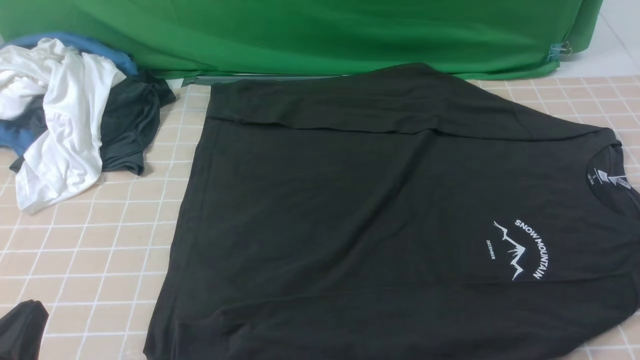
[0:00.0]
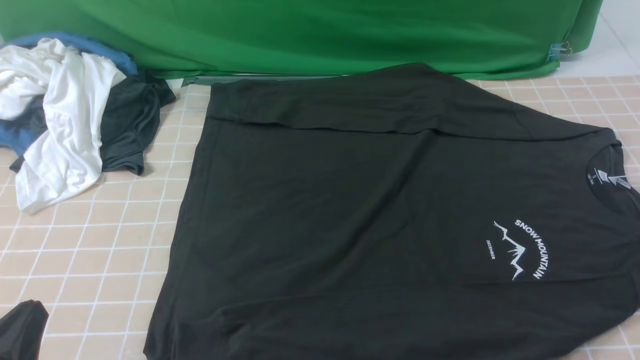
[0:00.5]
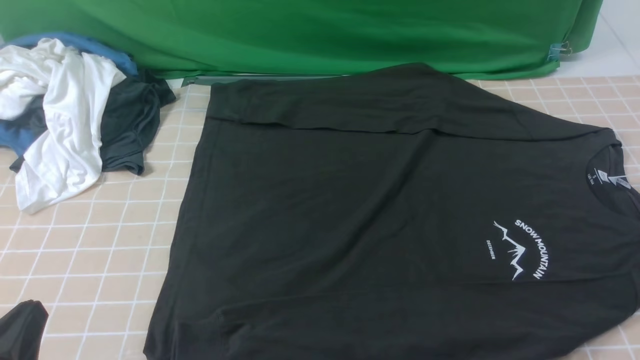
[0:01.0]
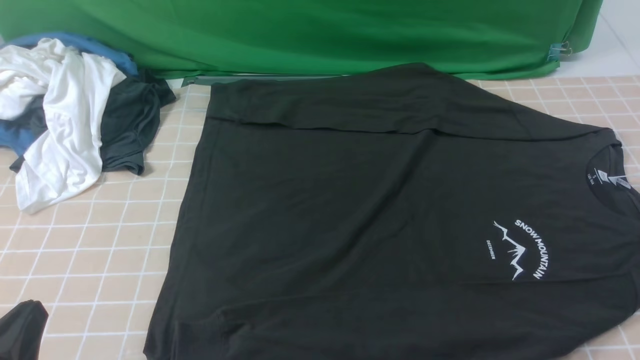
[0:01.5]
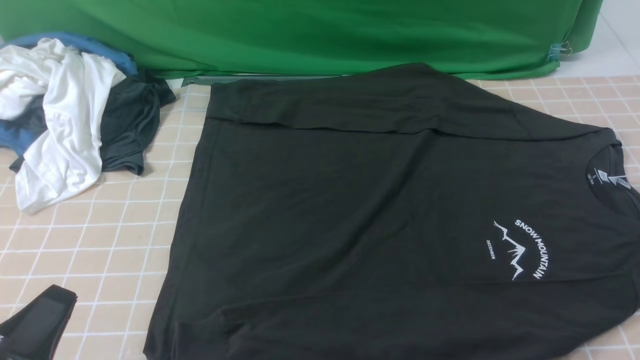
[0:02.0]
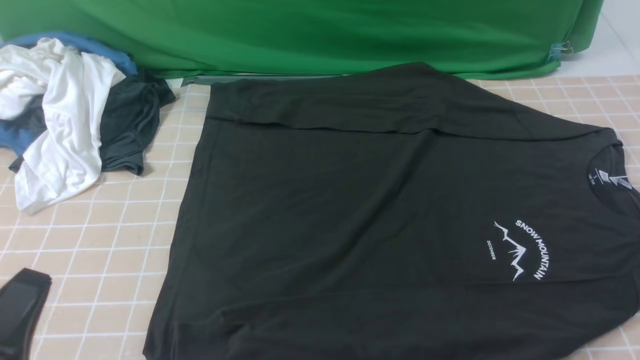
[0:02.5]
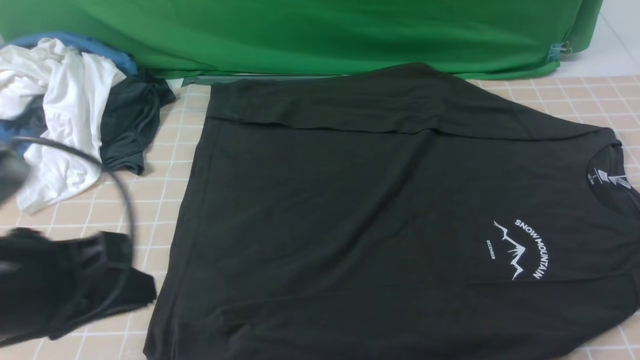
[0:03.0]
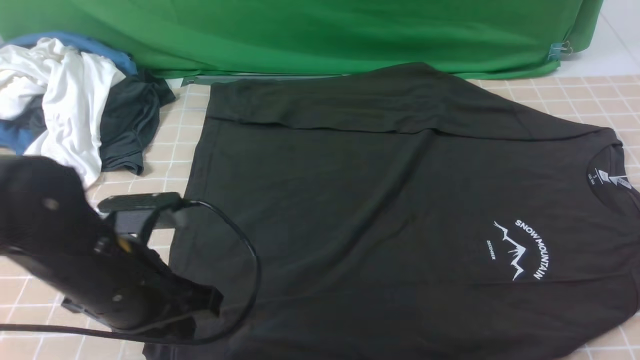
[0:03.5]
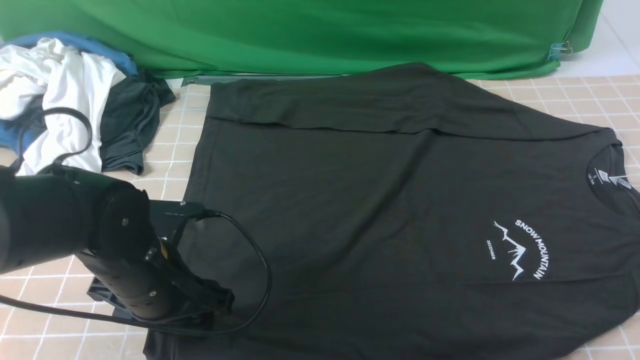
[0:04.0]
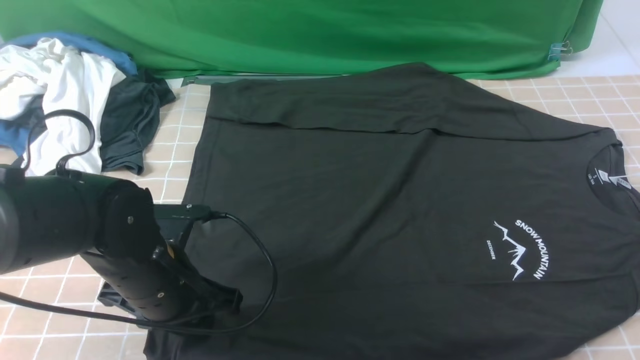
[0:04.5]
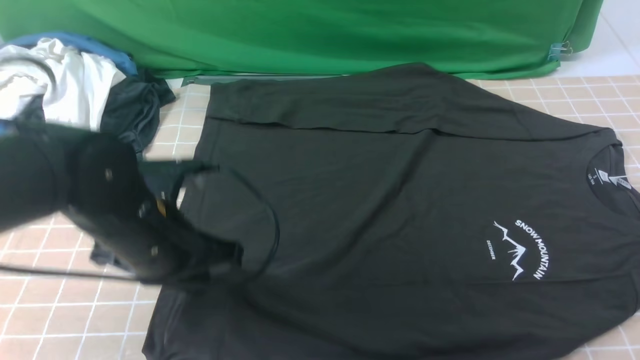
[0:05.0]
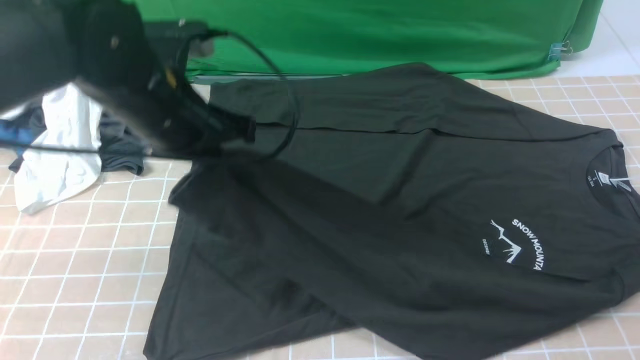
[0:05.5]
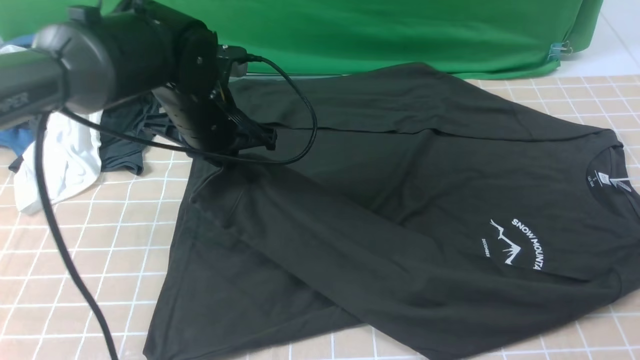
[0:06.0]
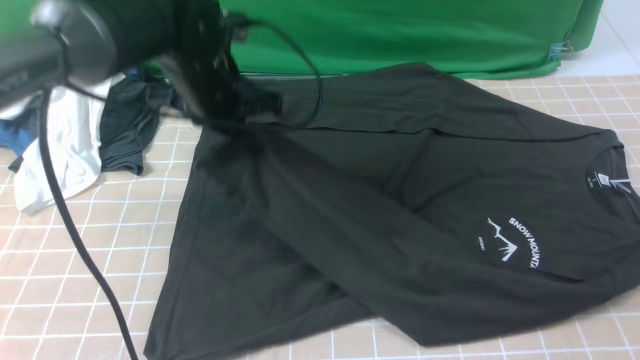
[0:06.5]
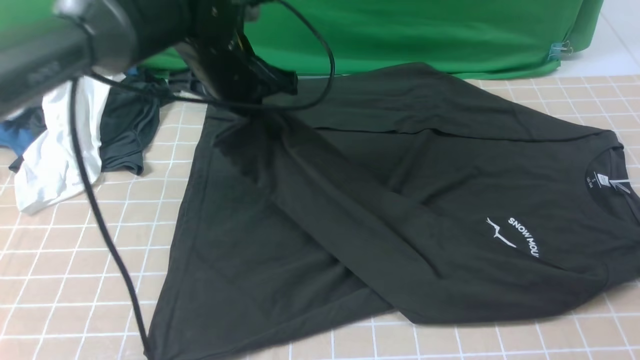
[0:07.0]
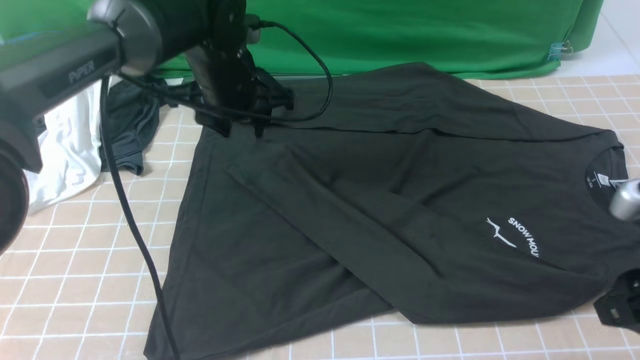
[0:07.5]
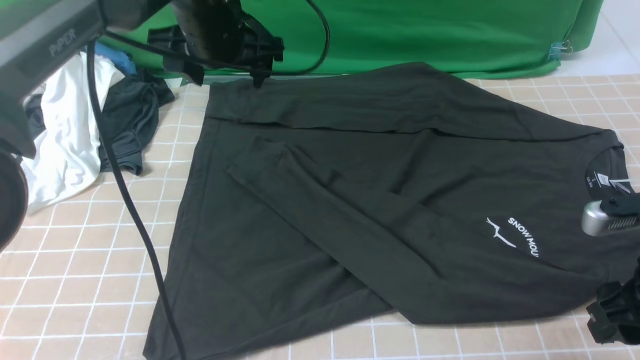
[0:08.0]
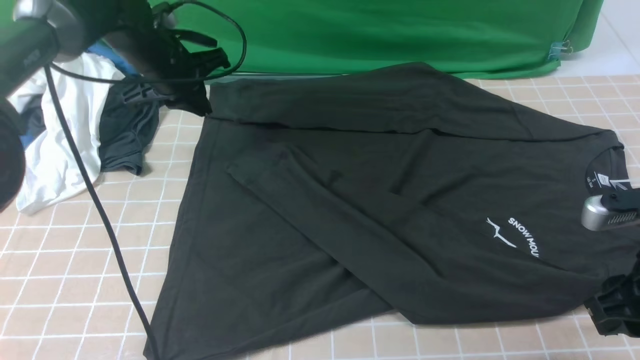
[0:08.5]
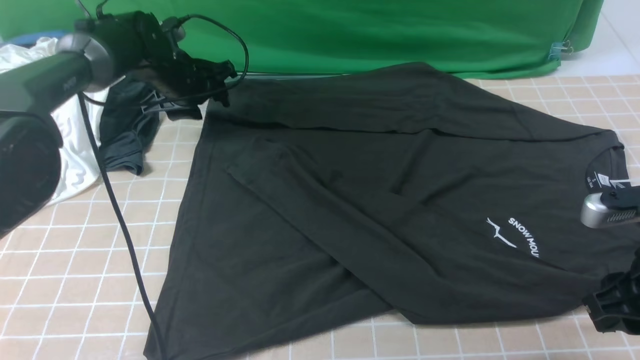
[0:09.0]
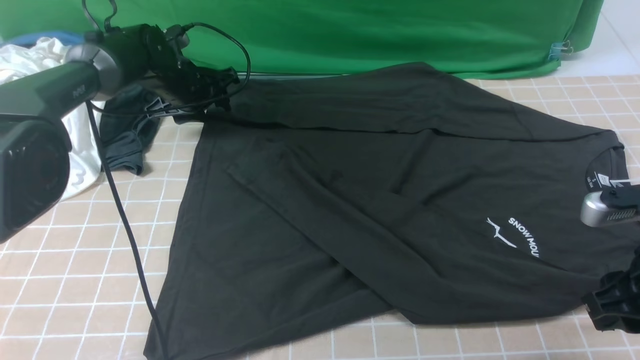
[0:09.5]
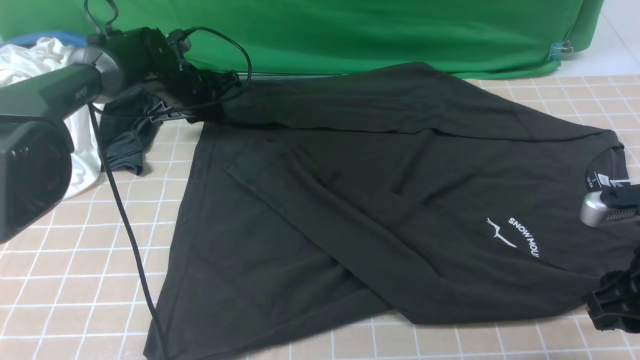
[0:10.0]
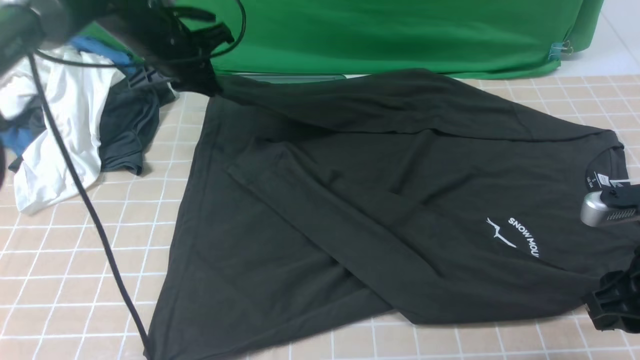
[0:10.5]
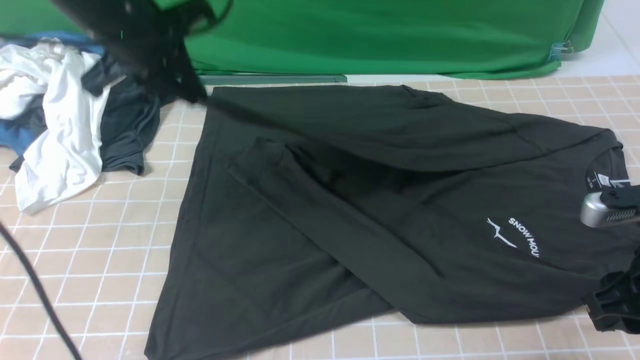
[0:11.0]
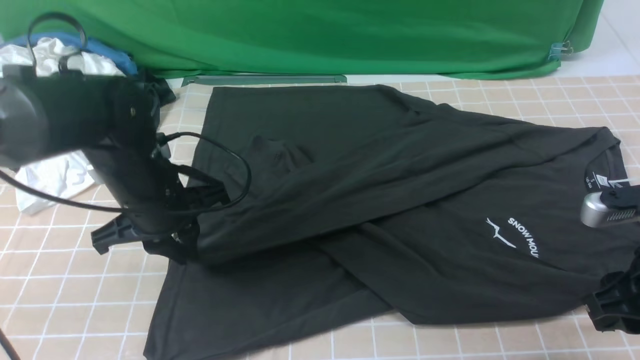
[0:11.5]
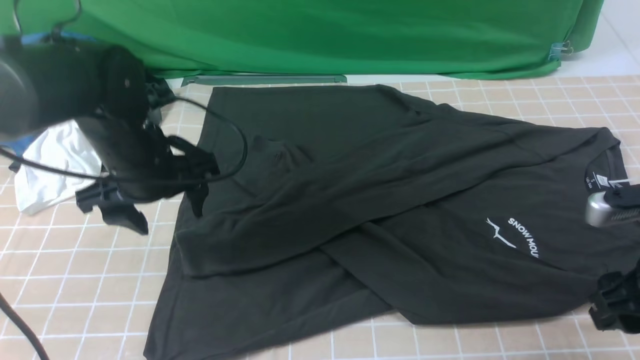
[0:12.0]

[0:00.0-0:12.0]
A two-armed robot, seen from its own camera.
Step, 0:00.0 to 0:04.5: use the left arm to clamp the cuff closest to it.
Step, 0:05.0 to 0:07.0: use the left arm to drag and place the cuff at the centered position on the left edge of the fabric.
Step, 0:07.5 to 0:10.0: use the left arm to clamp the cuff farthest from it.
Step, 0:10.5 to 0:11.5: use the left arm to drag and drop the cuff onto the cuff closest to the left arm.
0:02.0 to 0:04.0: The left gripper travels forward and to the right by approximately 20 cm, and opens.
0:04.0 to 0:06.0: The left gripper travels forward and upward by some 15 cm, and closes up.
0:06.0 to 0:08.0: The left gripper travels forward and upward by approximately 10 cm, and opens. The right gripper heads downward and forward, covering about 10 cm, and opens its fingers.
0:08.0 to 0:10.0: The left gripper heads downward, forward and to the left, covering roughly 15 cm, and closes its fingers.
0:10.0 to 0:12.0: The left gripper heads backward, covering approximately 20 cm, and opens up.

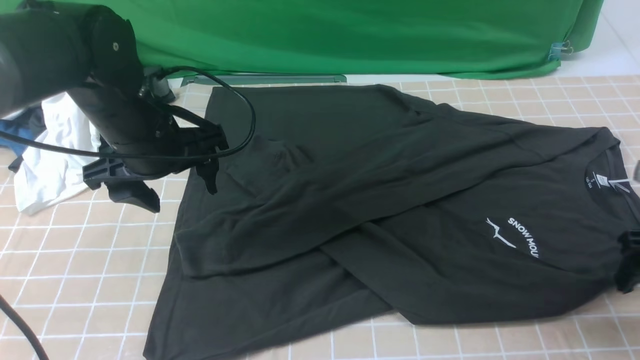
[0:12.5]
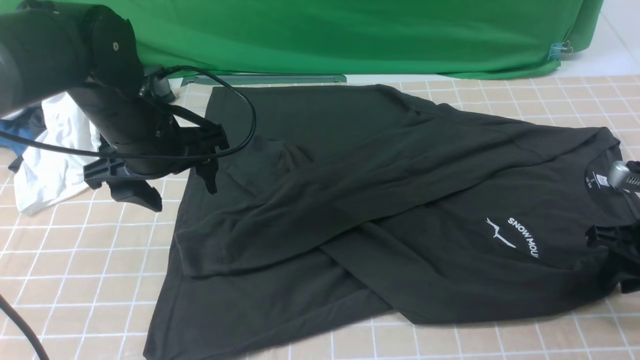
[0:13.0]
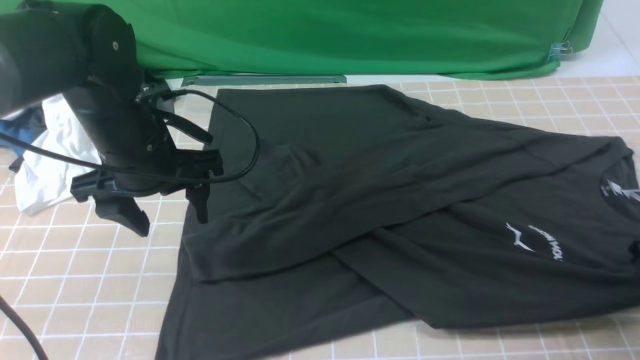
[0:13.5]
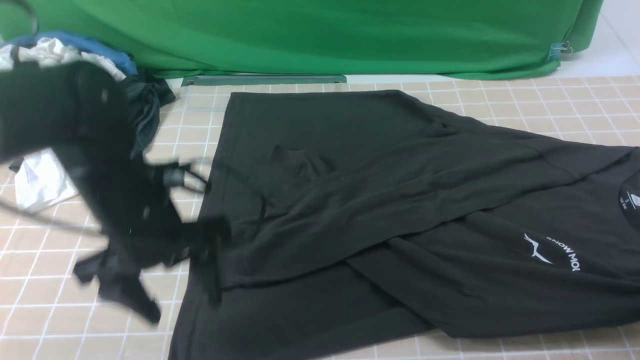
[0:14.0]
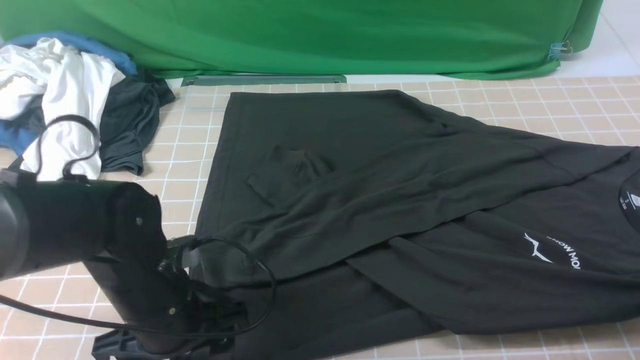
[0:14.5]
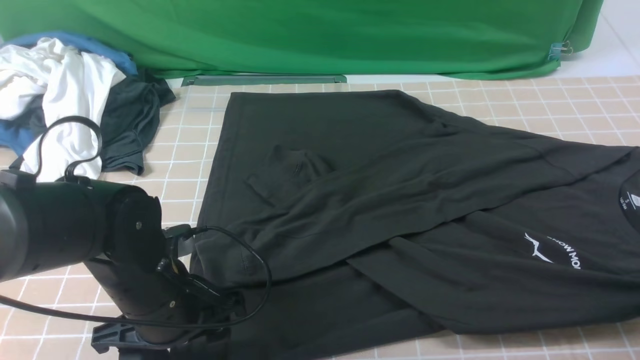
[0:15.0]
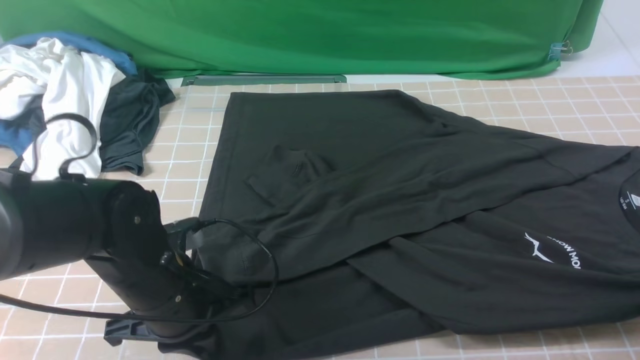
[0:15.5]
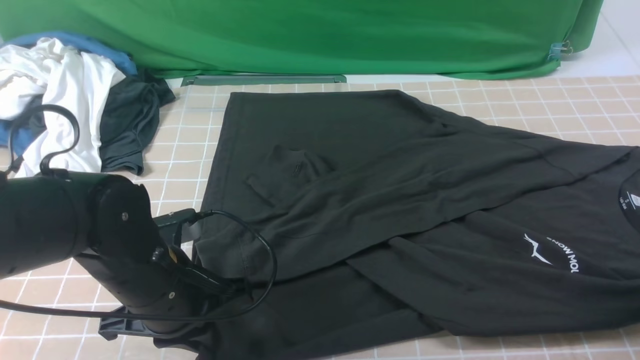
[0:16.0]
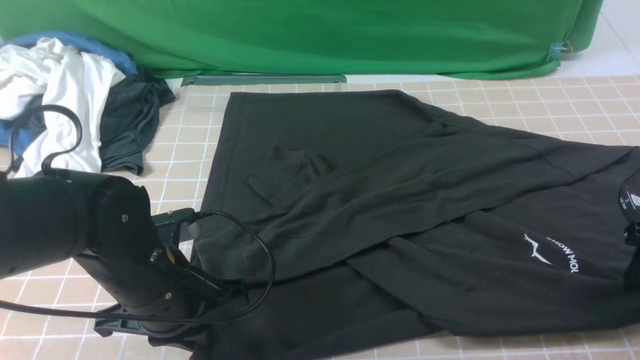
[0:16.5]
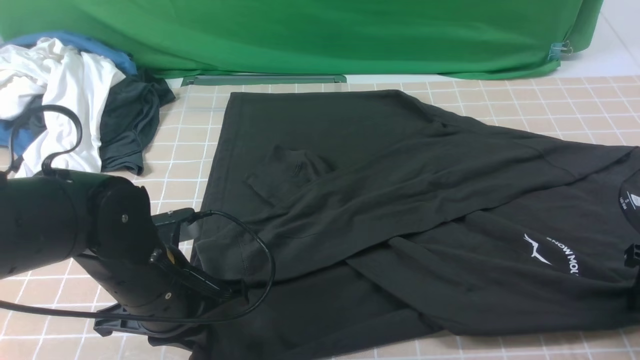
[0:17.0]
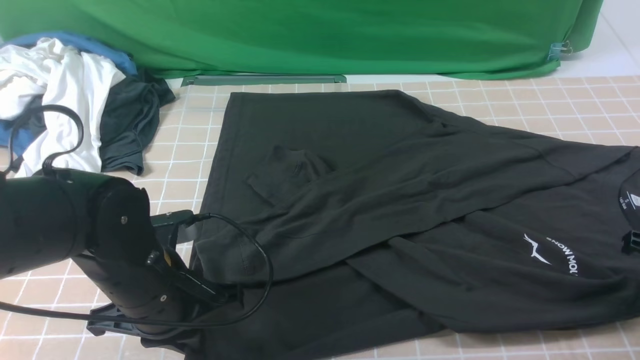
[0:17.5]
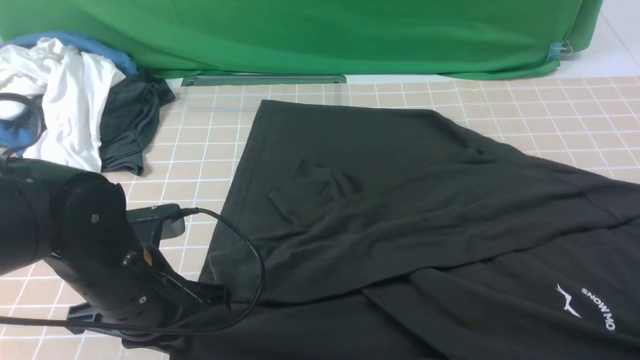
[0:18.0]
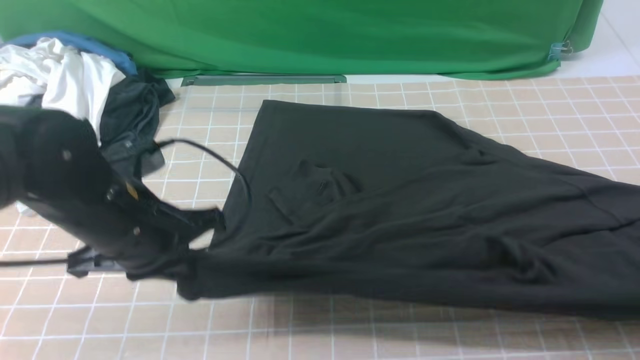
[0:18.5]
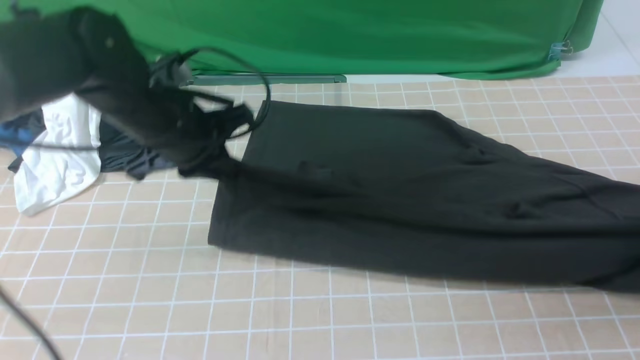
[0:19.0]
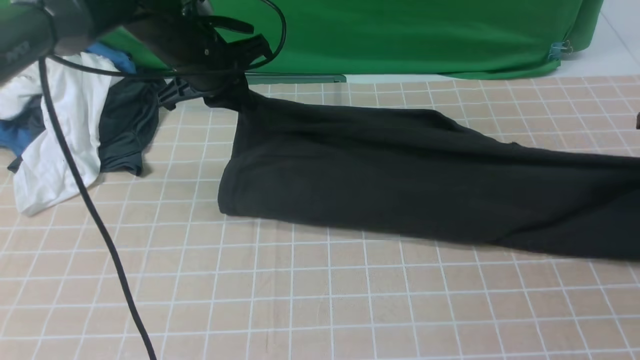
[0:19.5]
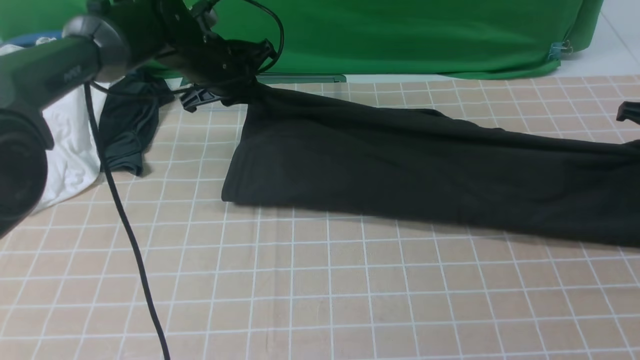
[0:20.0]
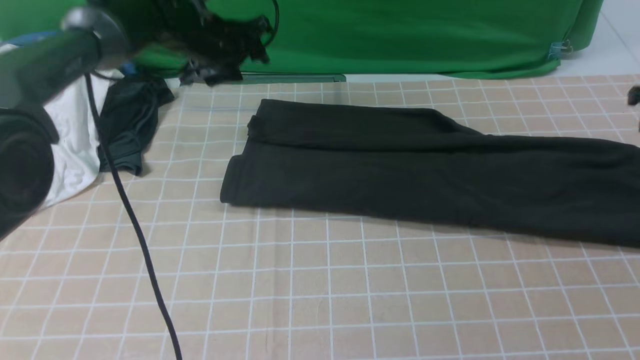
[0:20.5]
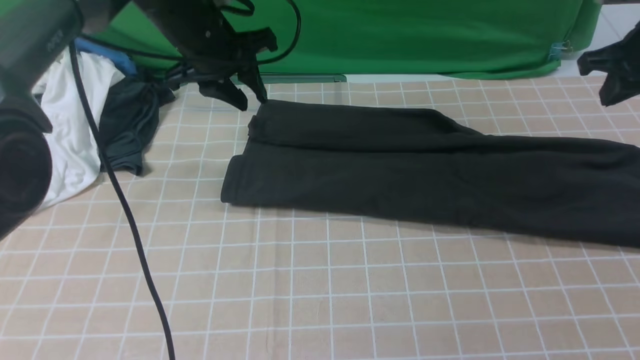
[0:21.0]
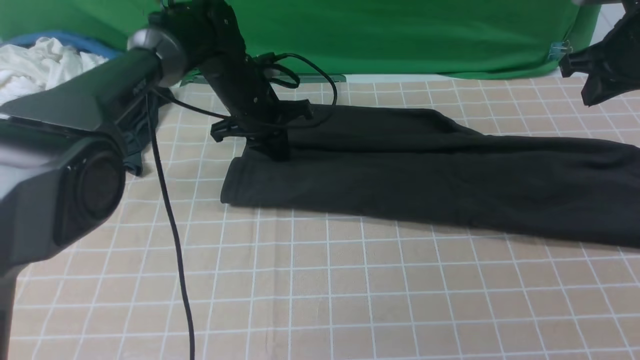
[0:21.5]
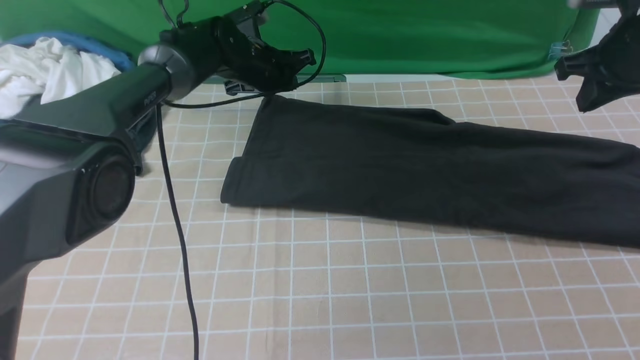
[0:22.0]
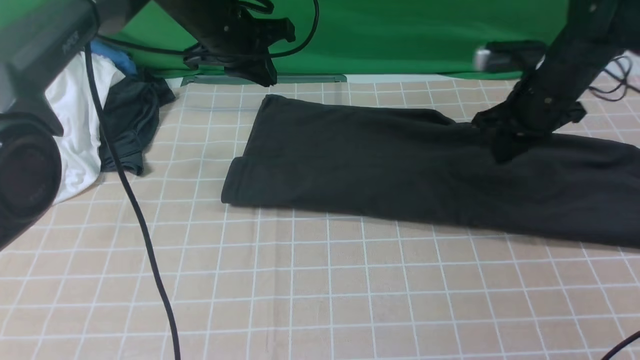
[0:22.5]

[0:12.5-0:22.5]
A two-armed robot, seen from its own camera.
Step, 0:12.5 to 0:18.0: use both arms simultaneously to clamp the lower edge of the clothing fabric.
Step, 0:18.5 to 0:20.0: use both arms to drag the lower edge of the fabric forward and fold it over the upper edge.
0:12.5 to 0:14.5: The left gripper heads backward and downward, covering approximately 15 cm. The right gripper closes up.
0:14.5 to 0:16.5: The left gripper closes up. Meanwhile the right gripper opens its fingers.
0:16.5 to 0:18.5: The left gripper heads upward, covering roughly 5 cm, while the right gripper closes.
0:18.5 to 0:20.5: Both grippers travel together forward, approximately 20 cm. The left gripper opens its fingers, while the right gripper opens its fingers.
0:20.5 to 0:22.5: The left gripper reaches about 5 cm downward, then returns, and closes its fingers; the right gripper moves to the left, roughly 15 cm, and closes.
